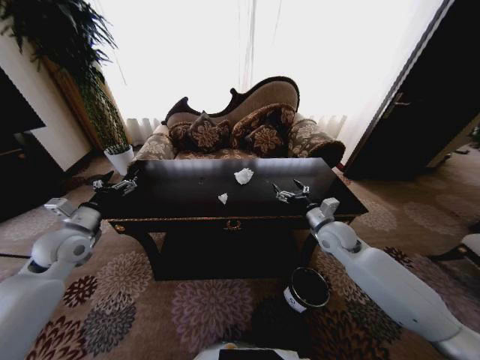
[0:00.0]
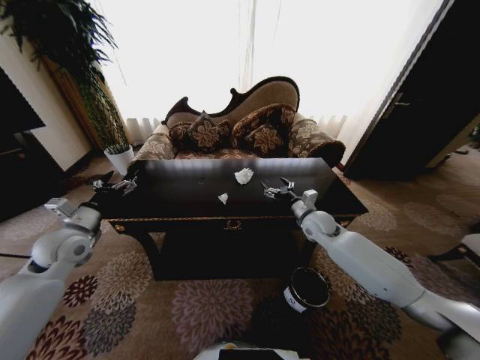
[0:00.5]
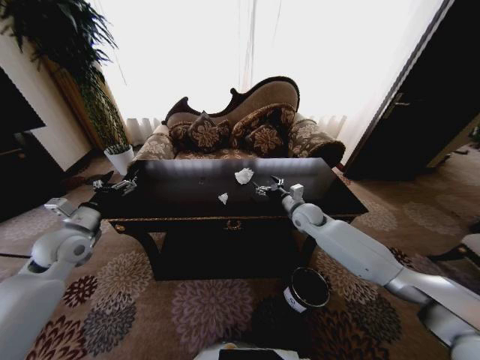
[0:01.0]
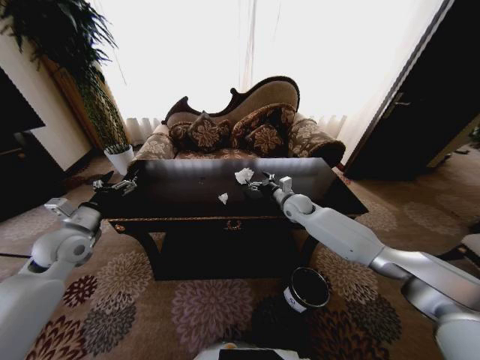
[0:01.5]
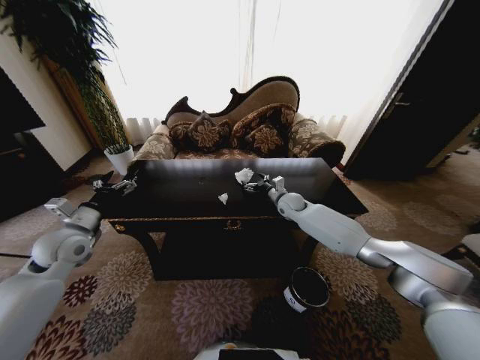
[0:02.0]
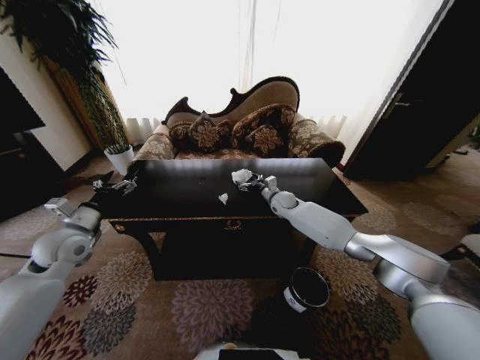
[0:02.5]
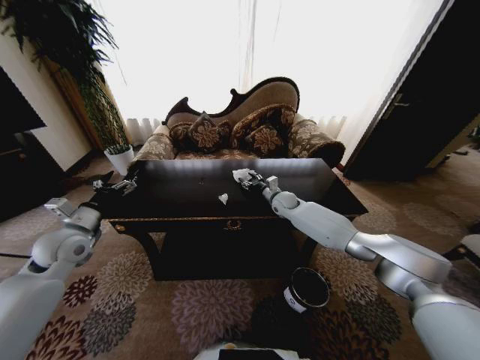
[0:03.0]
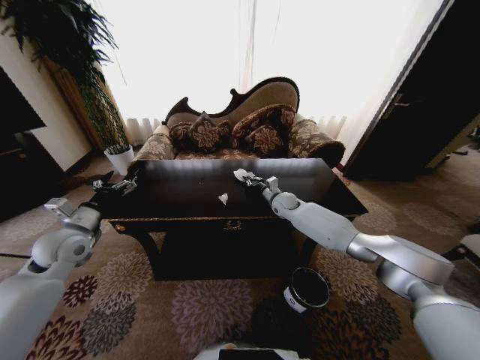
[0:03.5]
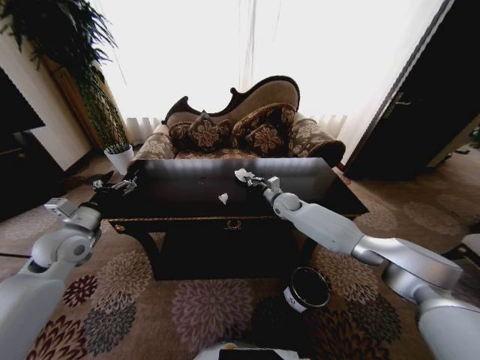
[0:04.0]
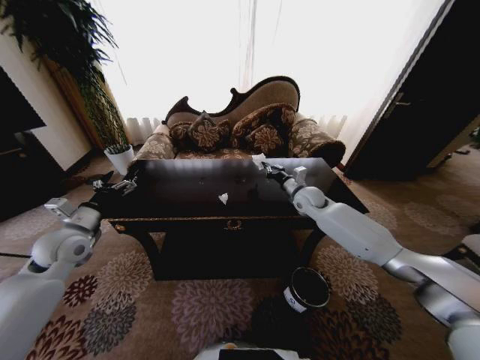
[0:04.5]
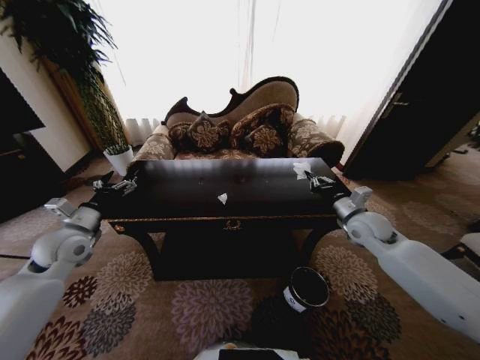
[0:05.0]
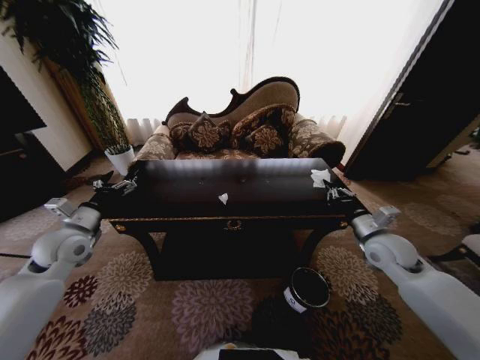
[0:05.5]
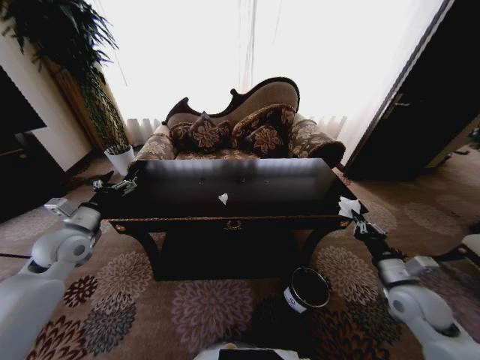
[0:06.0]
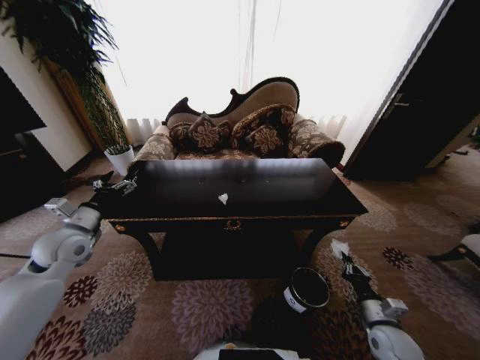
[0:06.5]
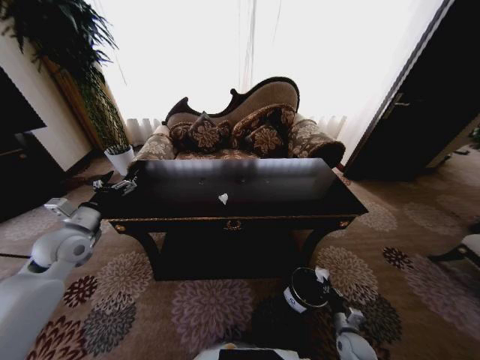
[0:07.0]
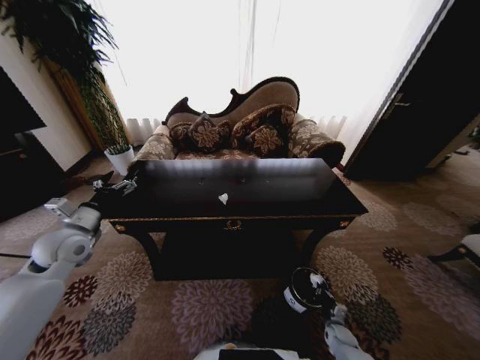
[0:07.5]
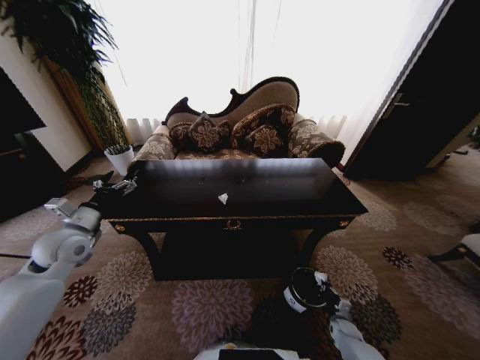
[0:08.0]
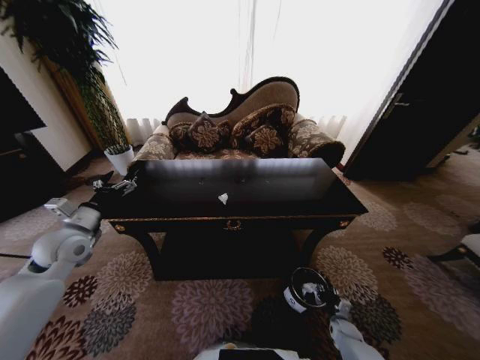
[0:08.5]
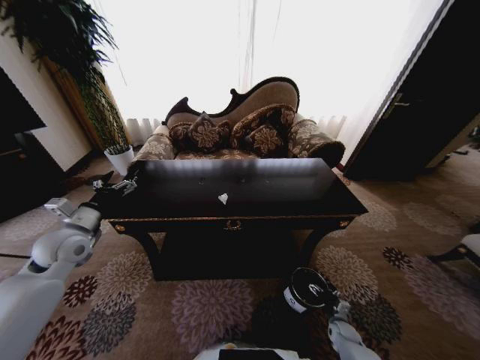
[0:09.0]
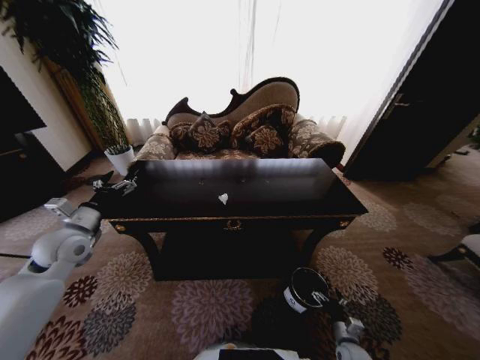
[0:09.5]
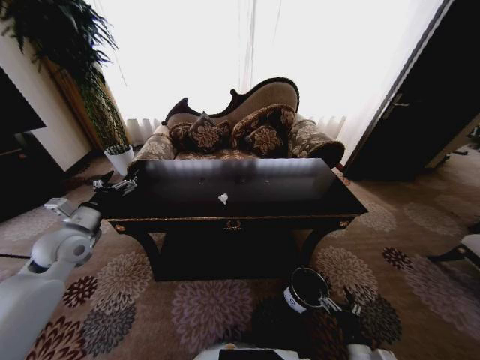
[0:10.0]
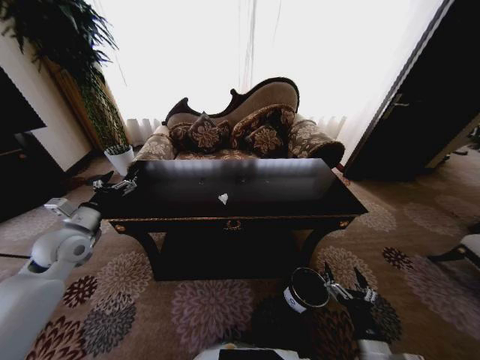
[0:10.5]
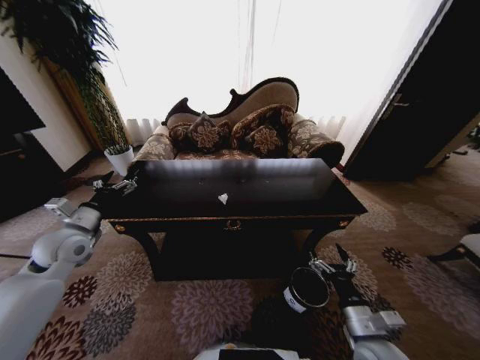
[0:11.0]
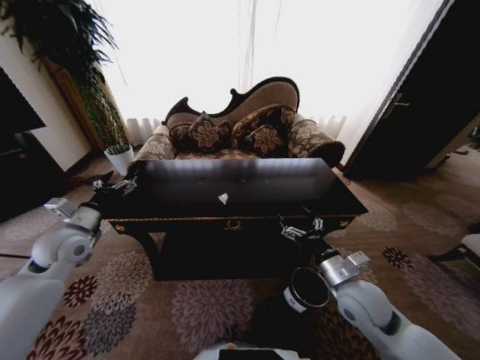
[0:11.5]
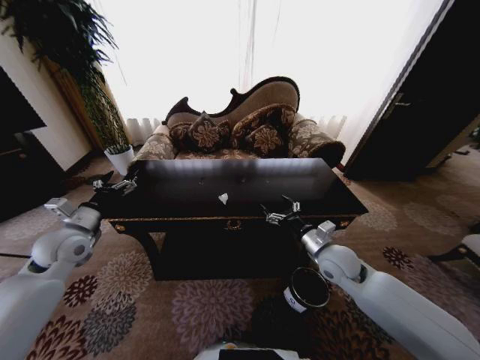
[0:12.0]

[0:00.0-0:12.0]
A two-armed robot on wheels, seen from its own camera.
Task of the whole recording: Move to the front of the table and place the trash on the table into the trash bin.
0:00.0 to 0:02.0: The right gripper travels forward and to the left by some 20 cm.
0:02.0 to 0:04.0: The right gripper closes its fingers.
0:04.0 to 0:06.0: The right gripper heads backward and to the right, covering approximately 40 cm.
0:06.0 to 0:08.0: The right gripper is displaced downward by approximately 35 cm.
0:08.0 to 0:10.0: The right gripper heads upward, backward and to the left, covering about 25 cm, and opens up.
0:10.0 to 0:12.0: The right gripper is displaced forward and upward by some 35 cm.

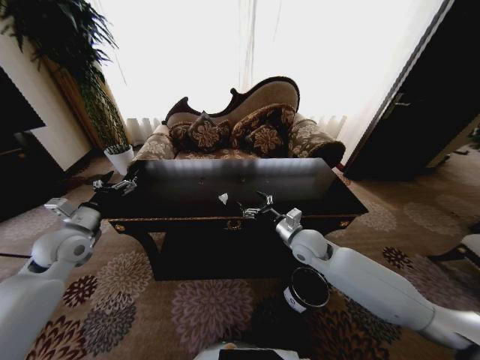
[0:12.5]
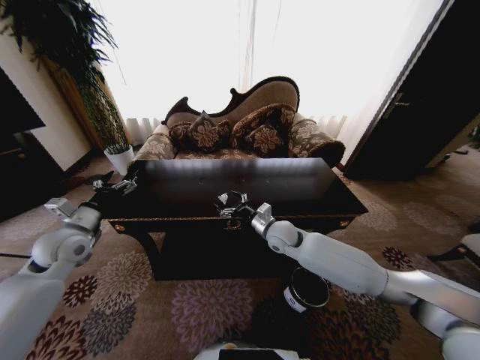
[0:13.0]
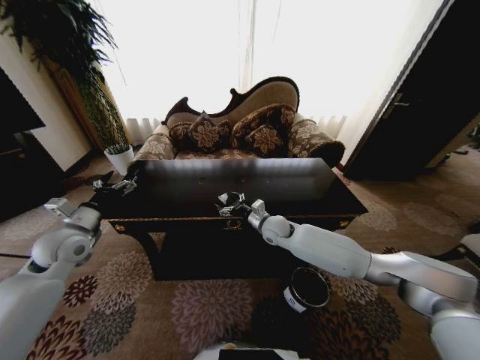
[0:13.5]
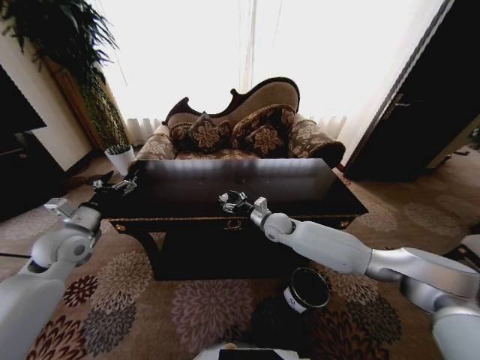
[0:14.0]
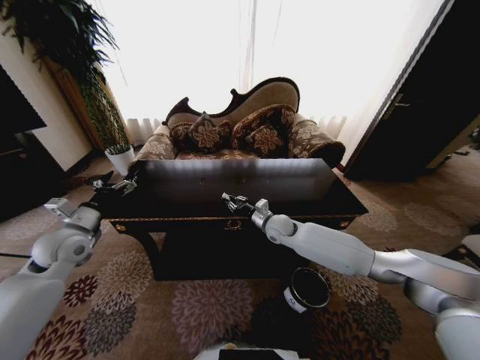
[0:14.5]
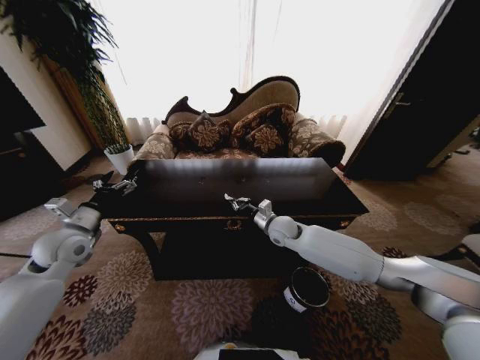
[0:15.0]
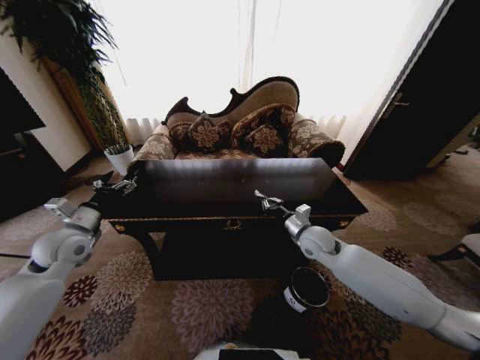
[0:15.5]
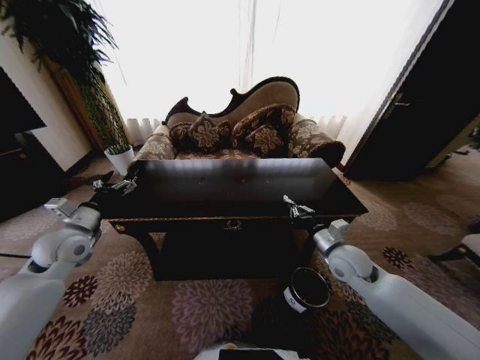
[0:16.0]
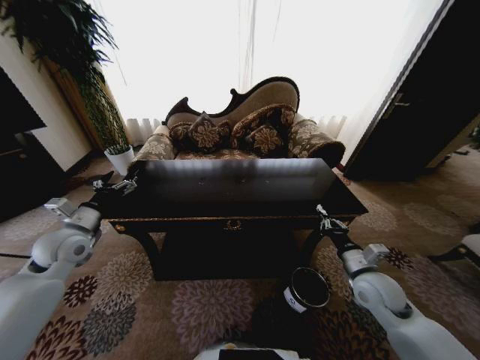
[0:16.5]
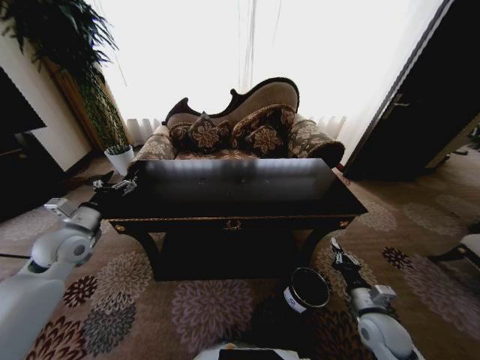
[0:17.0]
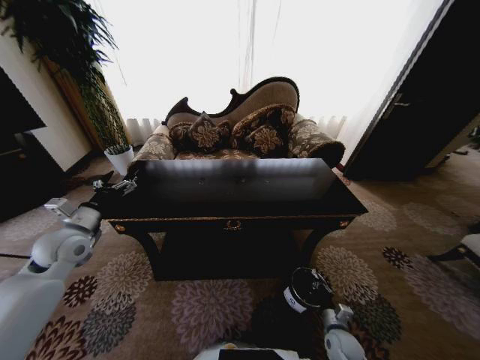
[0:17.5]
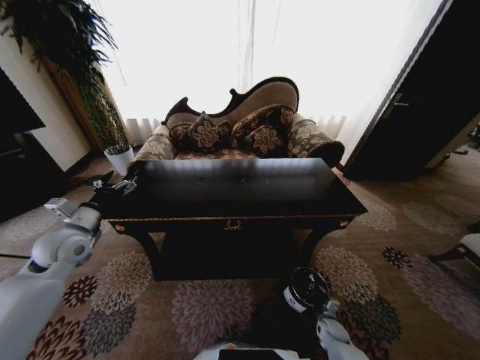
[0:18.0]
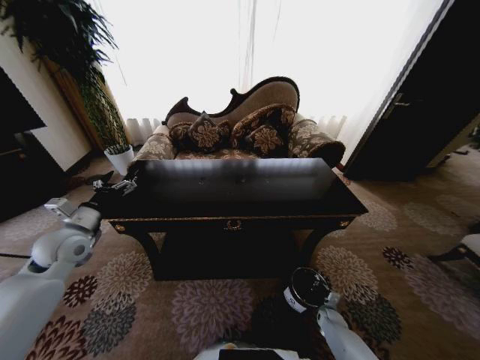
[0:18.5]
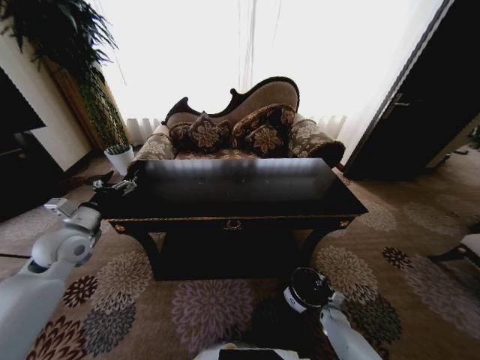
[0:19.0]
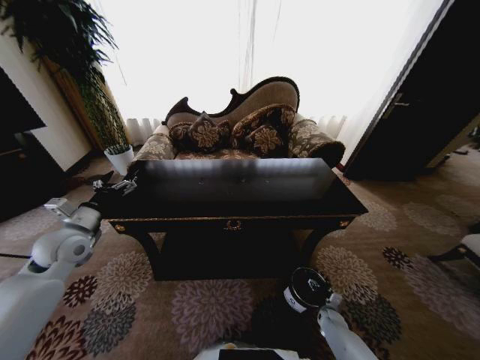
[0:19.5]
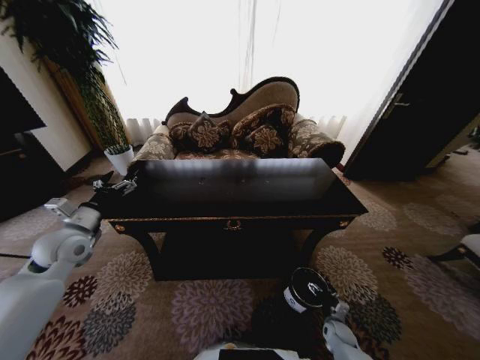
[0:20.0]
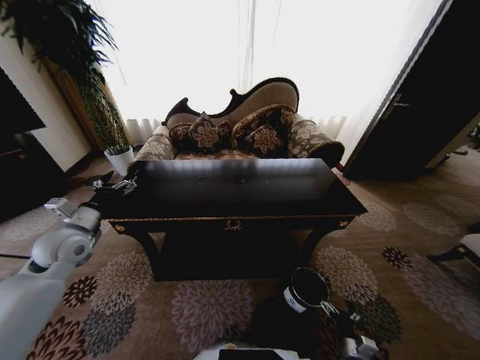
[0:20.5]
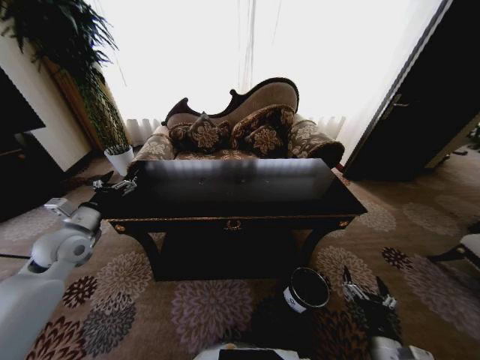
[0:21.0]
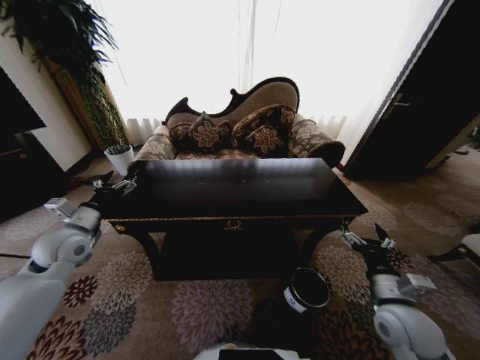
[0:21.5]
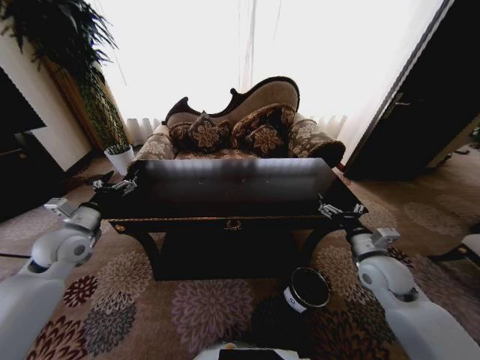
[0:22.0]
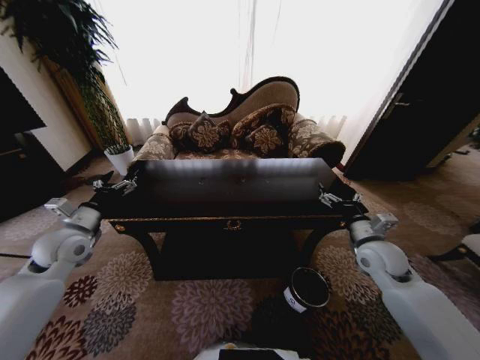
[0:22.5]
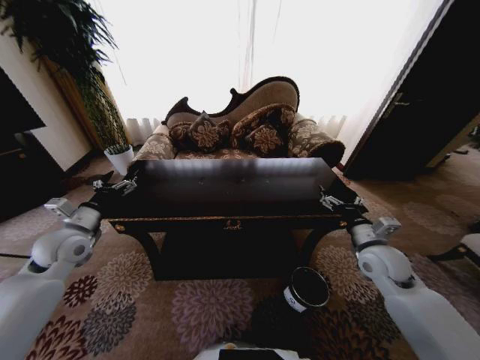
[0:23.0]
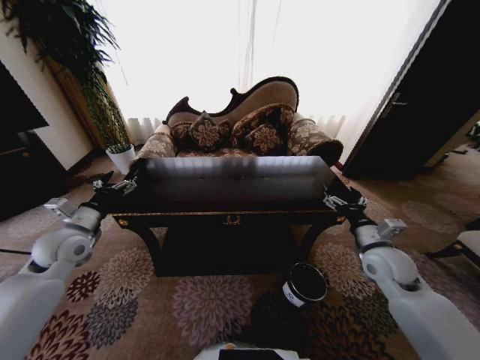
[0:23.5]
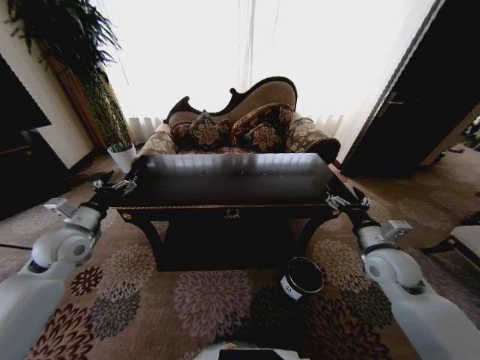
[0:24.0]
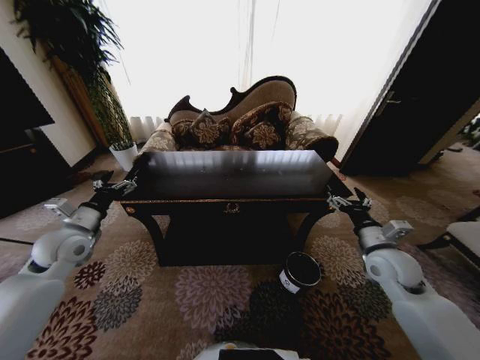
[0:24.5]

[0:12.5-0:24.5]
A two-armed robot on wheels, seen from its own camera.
Task of the whole recording: Move to the front of the table and place the trash on the table into the trash bin.
0:12.5 to 0:14.5: The right gripper shifts about 10 cm forward and to the left, and closes its fingers.
0:14.5 to 0:16.5: The right gripper travels backward and to the right by about 30 cm.
0:16.5 to 0:18.5: The right gripper moves downward, some 35 cm.
0:18.5 to 0:20.5: The right gripper shifts about 20 cm backward and upward, and opens up.
0:20.5 to 0:22.5: The right gripper heads upward and forward, covering approximately 40 cm.
0:22.5 to 0:24.5: There are only small adjustments of the grippers.

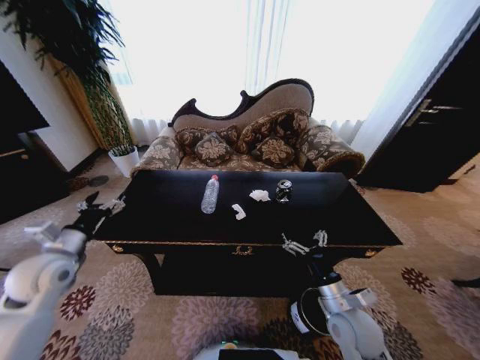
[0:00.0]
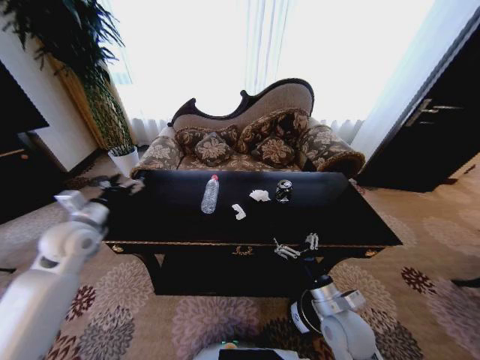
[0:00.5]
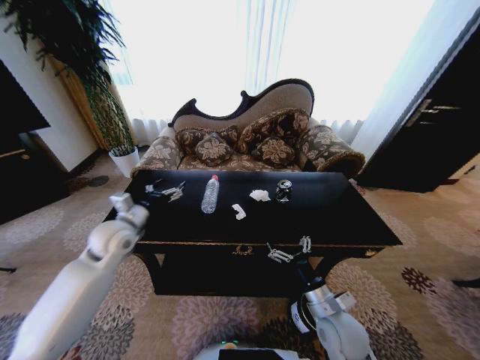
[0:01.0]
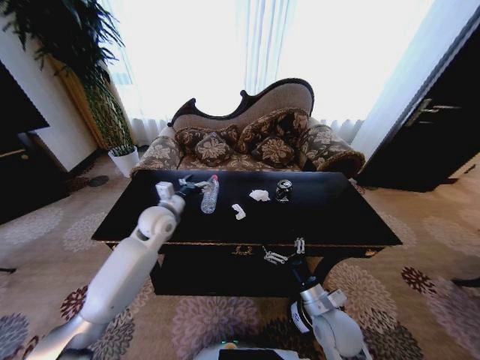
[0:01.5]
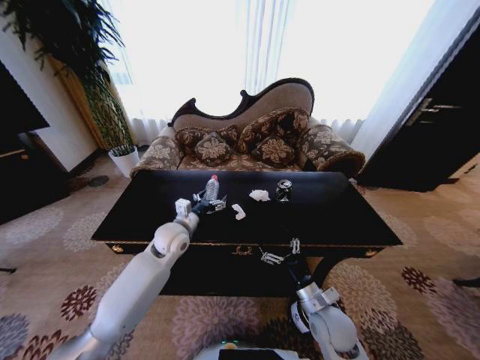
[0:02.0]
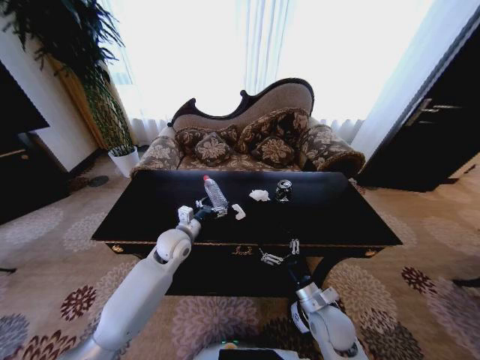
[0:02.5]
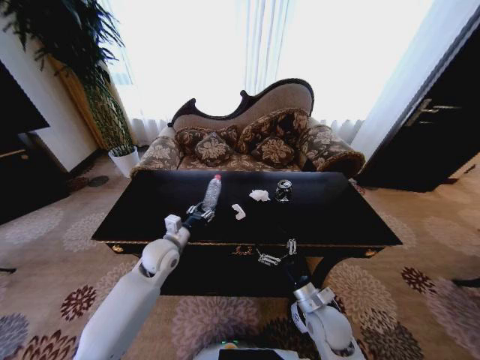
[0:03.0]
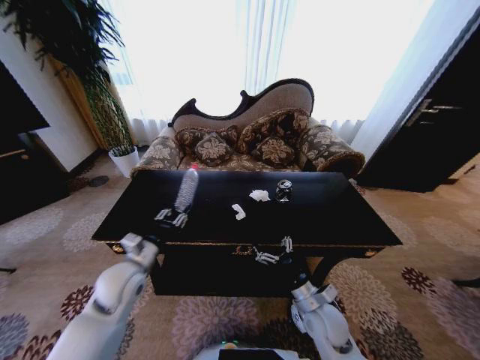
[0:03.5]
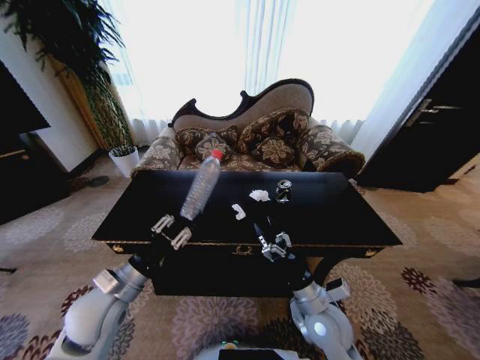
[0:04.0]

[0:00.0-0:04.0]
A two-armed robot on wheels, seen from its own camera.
Task of the whole recording: Move to the front of the table and place the trash on the table into the trash bin.
0:00.0 to 0:02.0: The left gripper moves to the right and forward, some 25 cm. Meanwhile the right gripper ends up approximately 5 cm from where it was.
0:02.0 to 0:04.0: The left gripper moves backward and to the left, approximately 20 cm, and closes; the right gripper shifts by about 5 cm.
